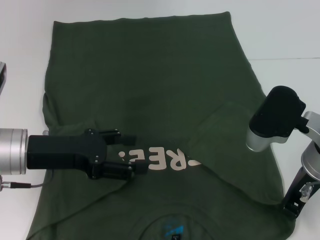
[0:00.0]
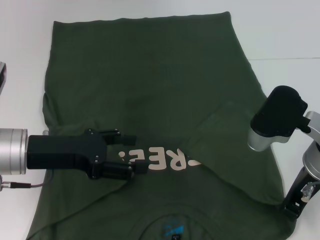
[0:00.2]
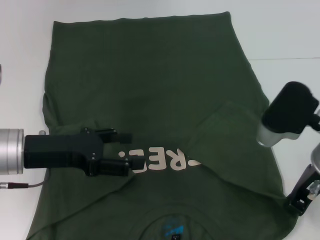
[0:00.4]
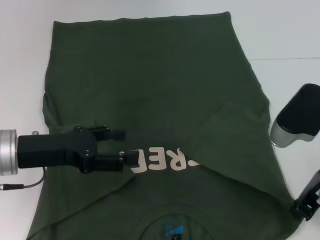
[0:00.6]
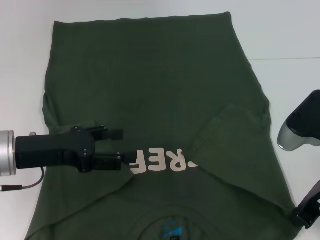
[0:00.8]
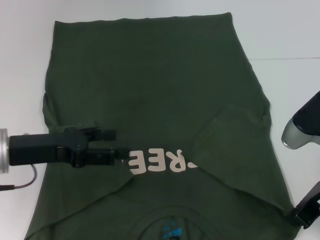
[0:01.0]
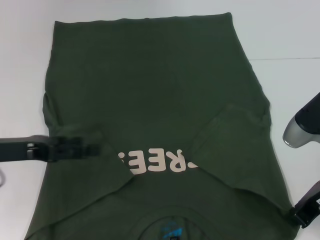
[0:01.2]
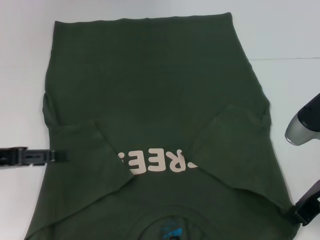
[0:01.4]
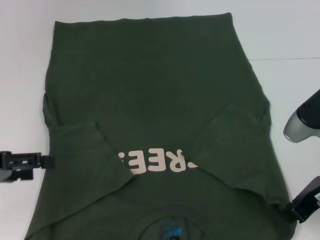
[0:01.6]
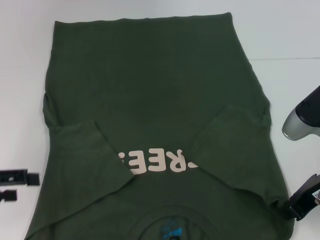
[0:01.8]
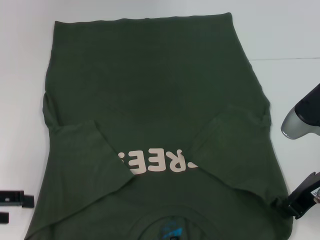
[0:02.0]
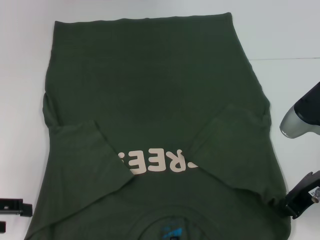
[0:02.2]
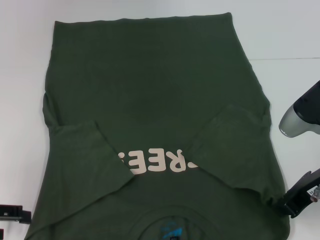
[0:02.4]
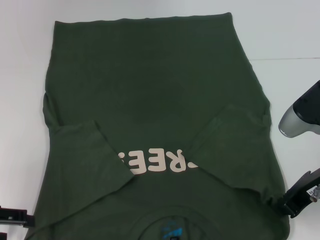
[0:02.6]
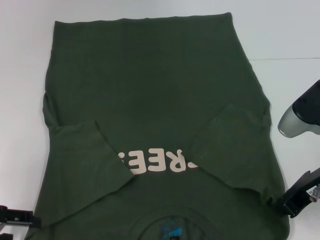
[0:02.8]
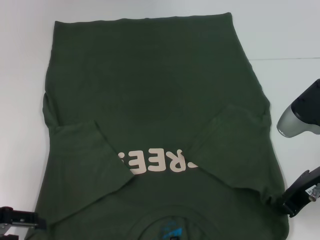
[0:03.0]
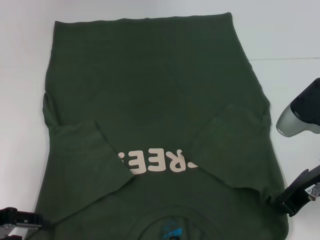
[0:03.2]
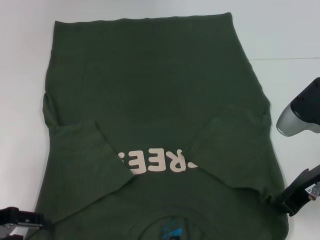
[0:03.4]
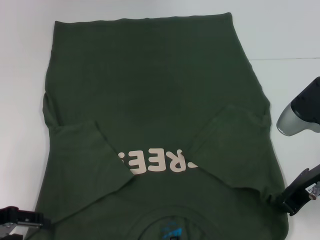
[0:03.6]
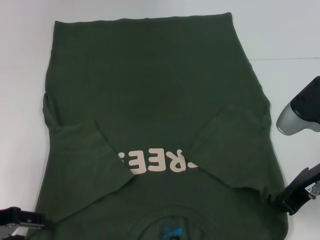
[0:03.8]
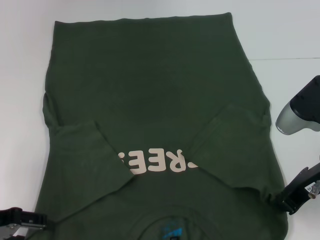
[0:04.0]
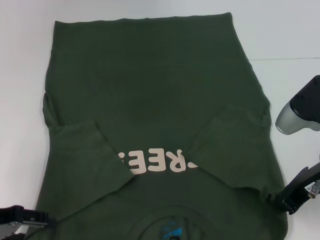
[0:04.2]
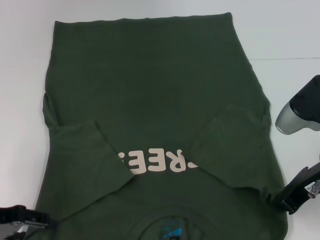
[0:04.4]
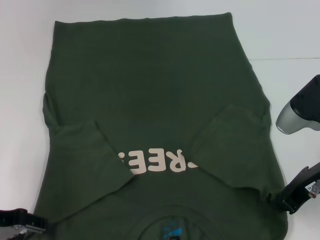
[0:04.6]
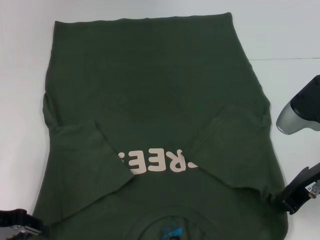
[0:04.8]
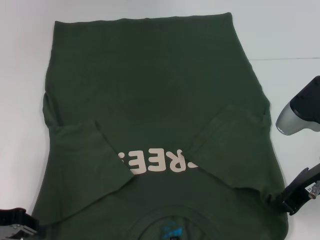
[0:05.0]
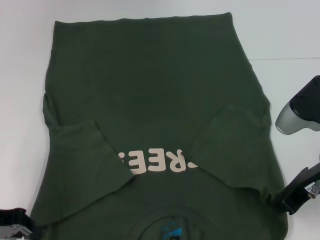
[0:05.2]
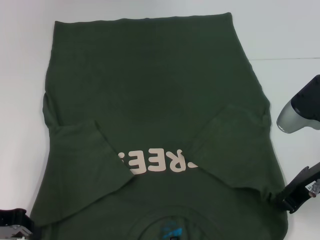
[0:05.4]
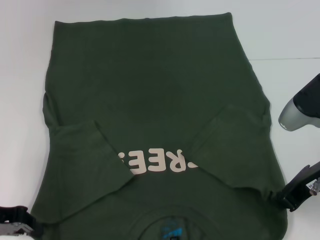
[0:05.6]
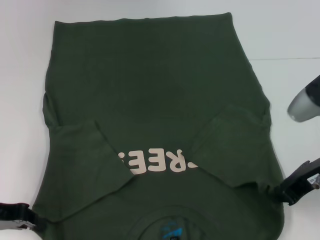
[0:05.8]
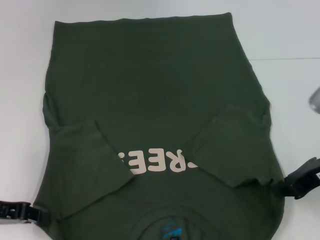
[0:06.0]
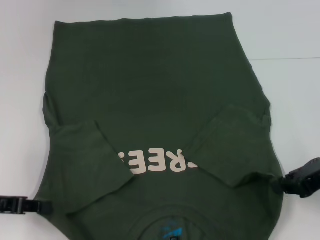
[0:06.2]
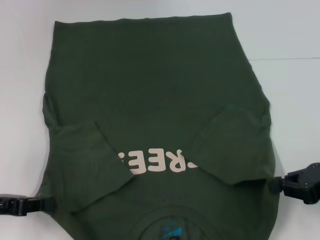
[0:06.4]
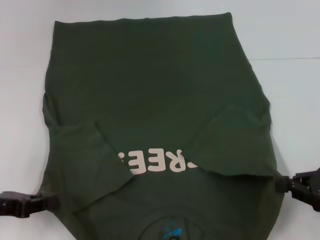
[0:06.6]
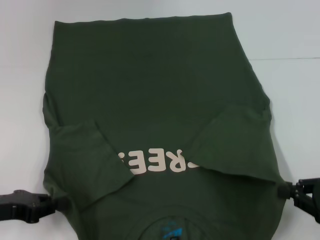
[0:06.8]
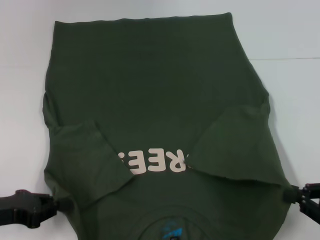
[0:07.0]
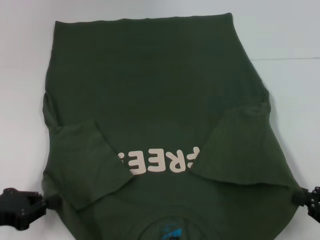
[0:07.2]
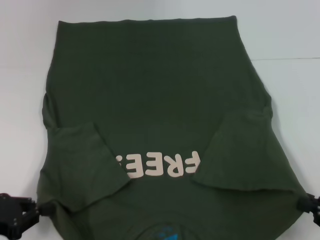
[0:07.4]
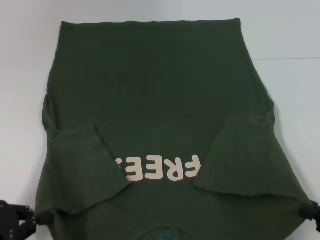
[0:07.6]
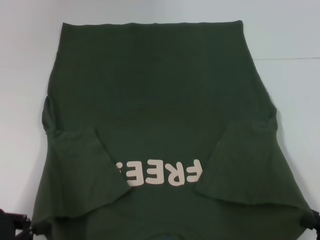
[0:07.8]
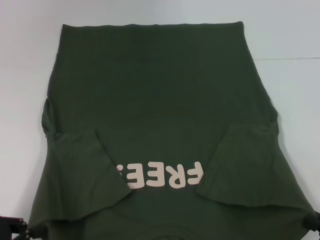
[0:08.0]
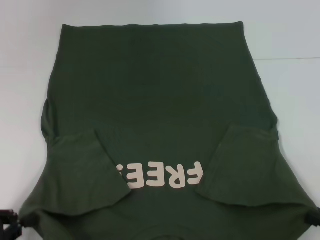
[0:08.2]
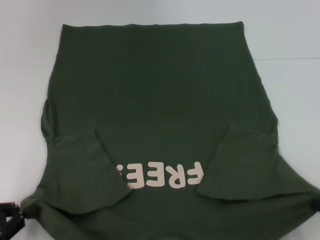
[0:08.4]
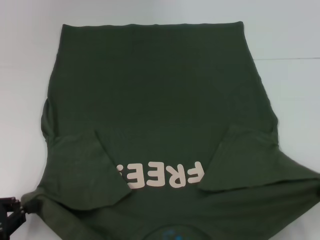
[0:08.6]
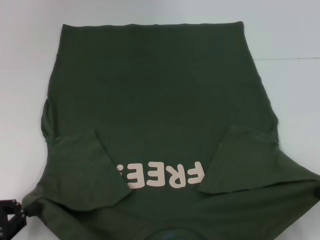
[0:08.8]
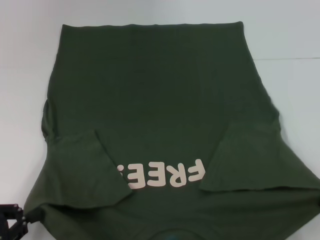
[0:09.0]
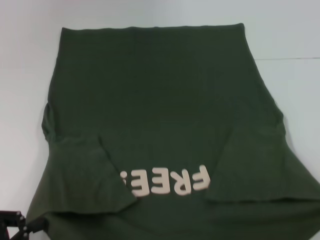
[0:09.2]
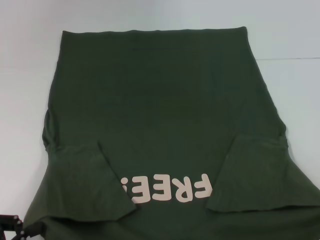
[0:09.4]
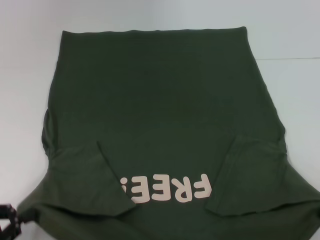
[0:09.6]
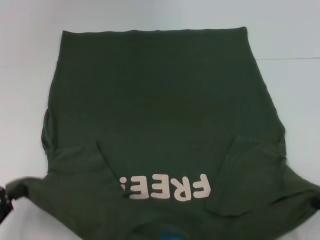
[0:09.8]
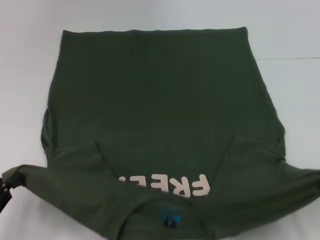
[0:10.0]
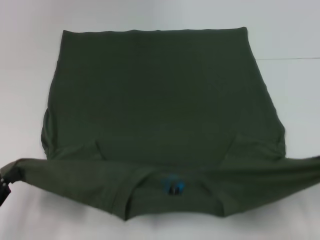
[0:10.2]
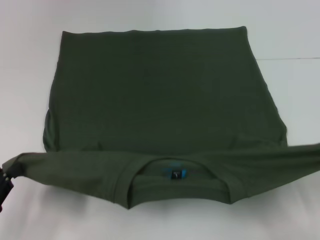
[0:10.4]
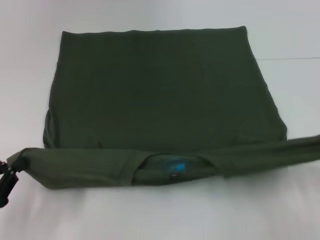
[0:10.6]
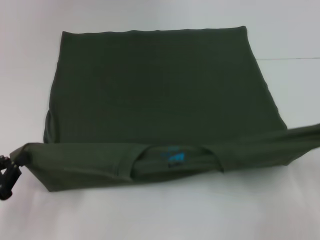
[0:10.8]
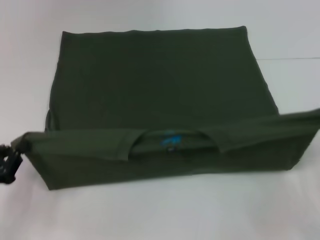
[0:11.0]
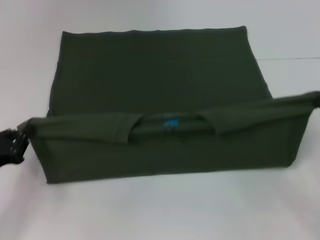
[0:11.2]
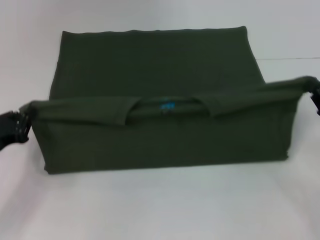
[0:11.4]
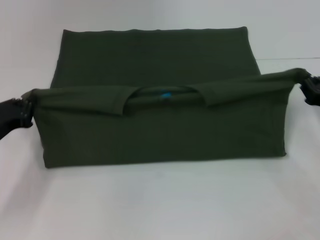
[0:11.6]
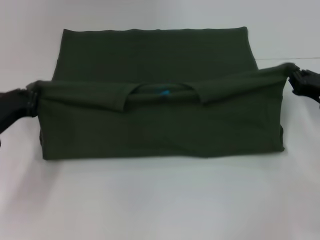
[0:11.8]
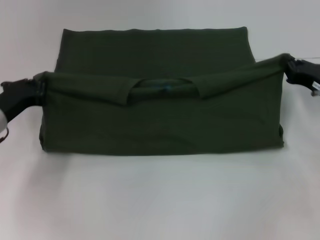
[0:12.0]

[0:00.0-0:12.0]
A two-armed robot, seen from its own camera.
Step, 0:00.6 to 0:05.4: Grab the bottom left corner with your left hand.
0:00.0 to 0:01.6: The left gripper goes roughly 10 cm to the left.
0:03.0 to 0:04.4: The grippers stay close to where they were, moving slightly.
0:04.4 to 0:06.0: The left gripper closes up.
0:06.0 to 0:07.6: The right gripper is displaced backward, downward and to the right by some 20 cm, while the left gripper is displaced backward by approximately 5 cm.
0:07.6 to 0:09.0: The grippers stay close to where they were, moving slightly.
0:10.4 to 0:12.0: The two grippers go about 20 cm forward.

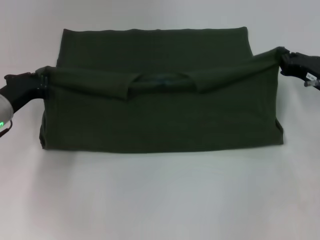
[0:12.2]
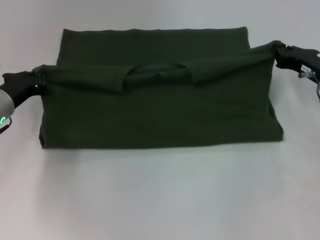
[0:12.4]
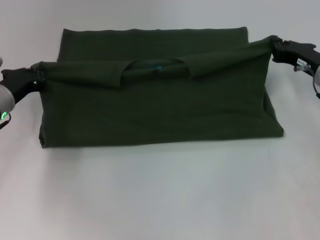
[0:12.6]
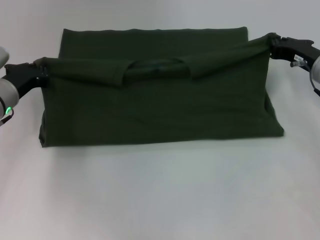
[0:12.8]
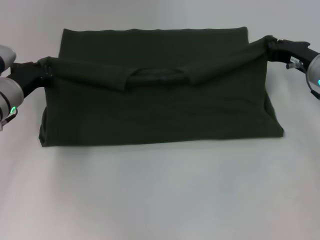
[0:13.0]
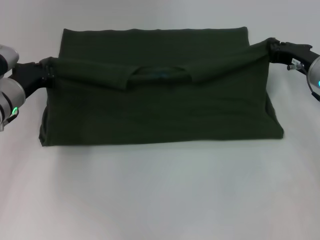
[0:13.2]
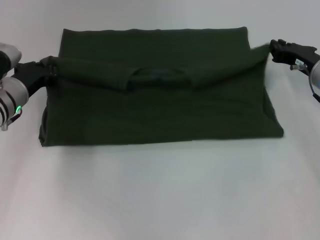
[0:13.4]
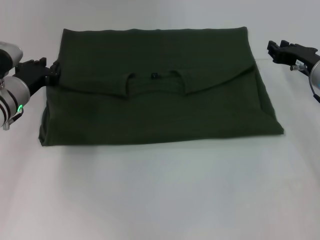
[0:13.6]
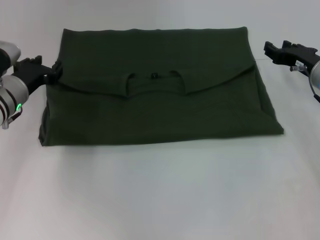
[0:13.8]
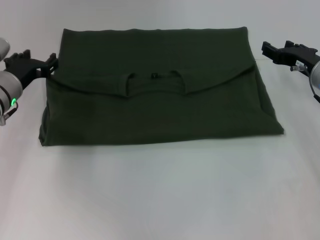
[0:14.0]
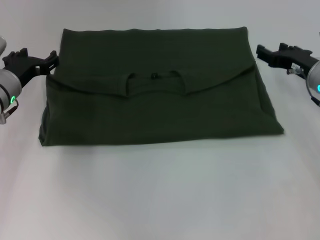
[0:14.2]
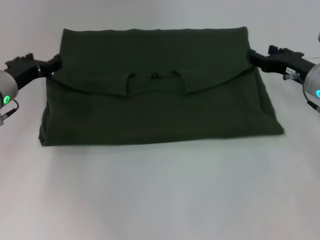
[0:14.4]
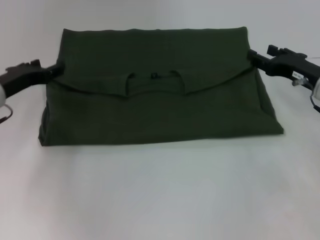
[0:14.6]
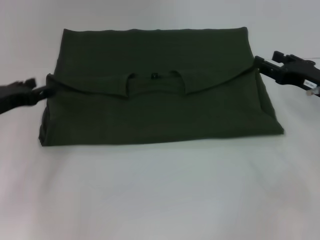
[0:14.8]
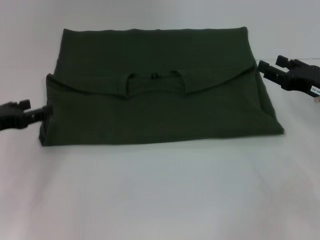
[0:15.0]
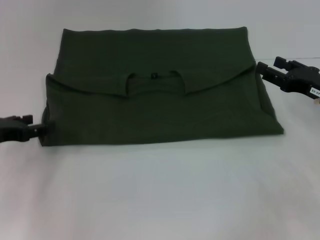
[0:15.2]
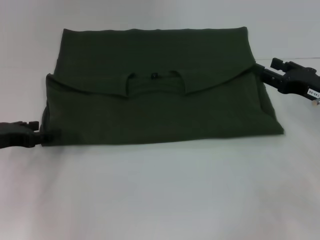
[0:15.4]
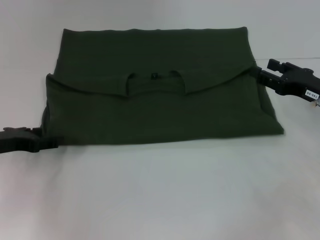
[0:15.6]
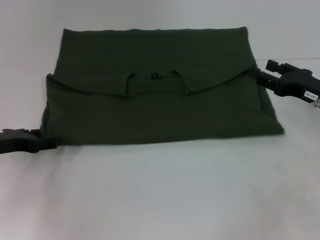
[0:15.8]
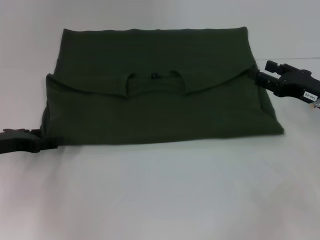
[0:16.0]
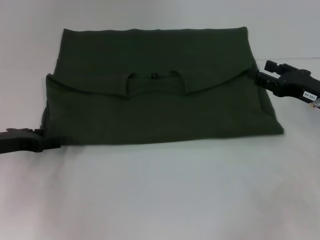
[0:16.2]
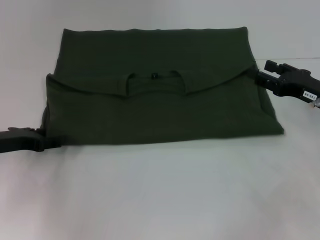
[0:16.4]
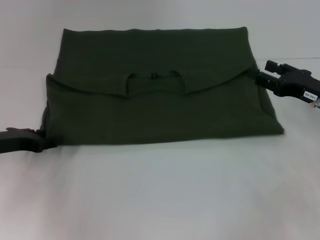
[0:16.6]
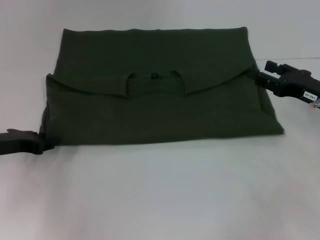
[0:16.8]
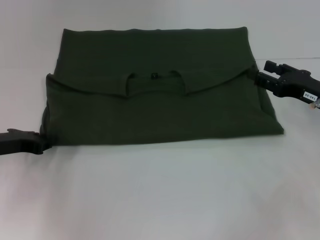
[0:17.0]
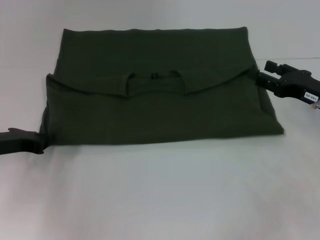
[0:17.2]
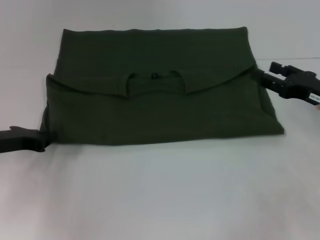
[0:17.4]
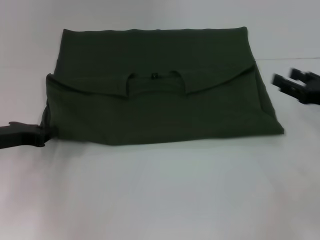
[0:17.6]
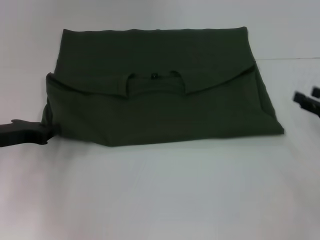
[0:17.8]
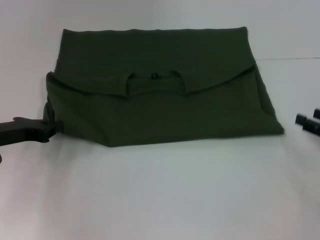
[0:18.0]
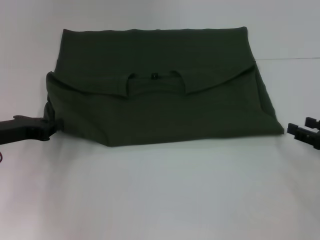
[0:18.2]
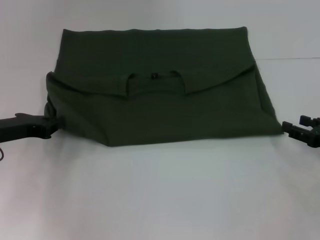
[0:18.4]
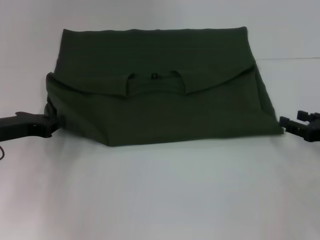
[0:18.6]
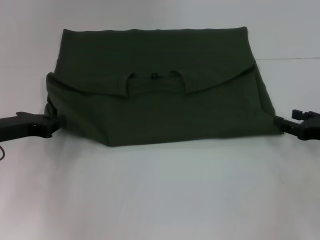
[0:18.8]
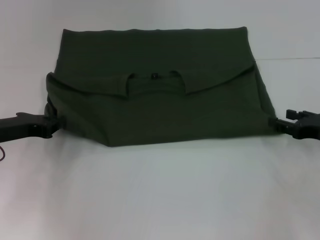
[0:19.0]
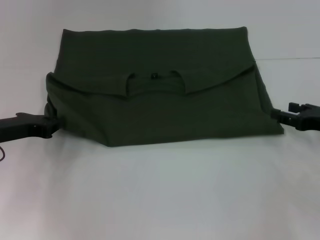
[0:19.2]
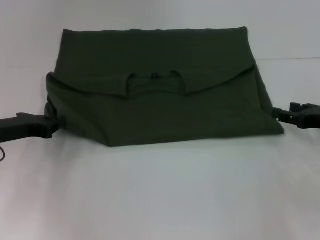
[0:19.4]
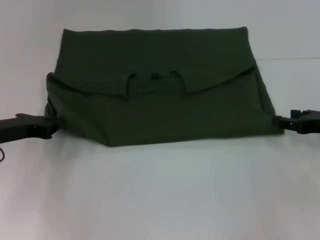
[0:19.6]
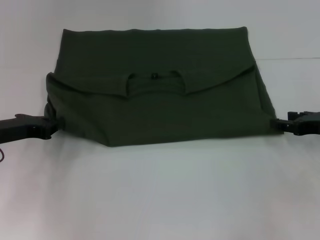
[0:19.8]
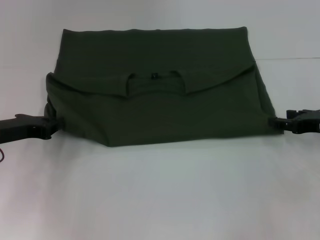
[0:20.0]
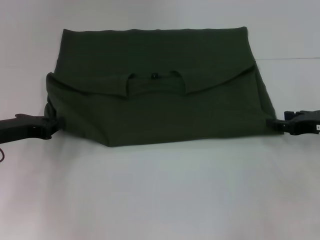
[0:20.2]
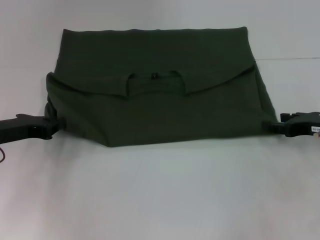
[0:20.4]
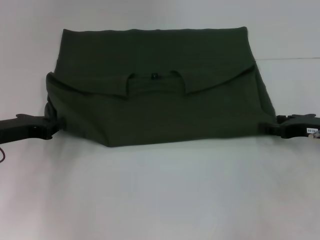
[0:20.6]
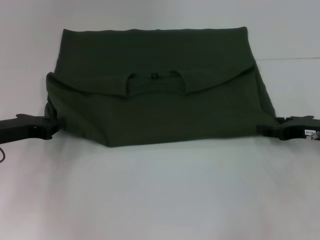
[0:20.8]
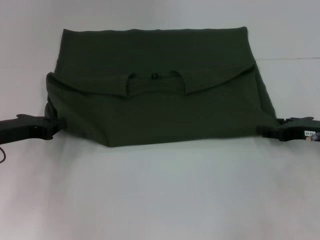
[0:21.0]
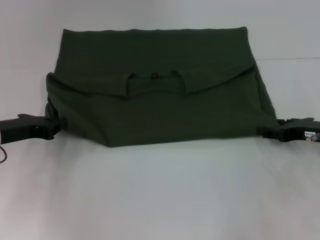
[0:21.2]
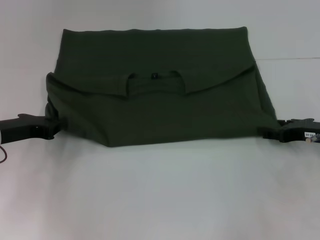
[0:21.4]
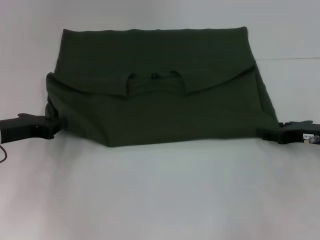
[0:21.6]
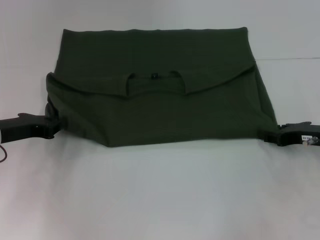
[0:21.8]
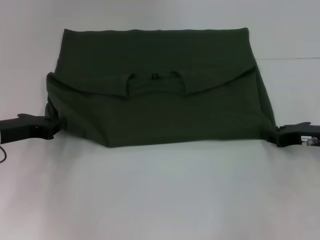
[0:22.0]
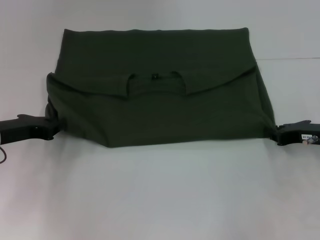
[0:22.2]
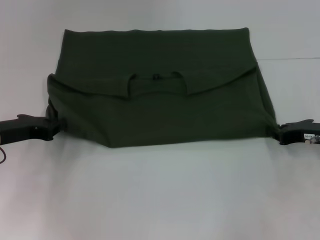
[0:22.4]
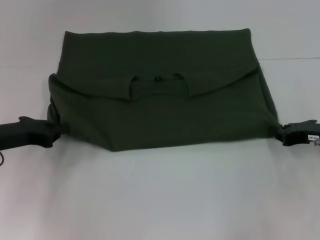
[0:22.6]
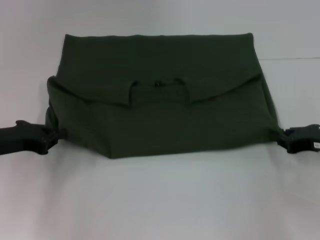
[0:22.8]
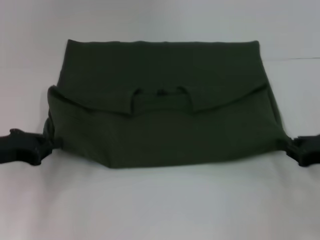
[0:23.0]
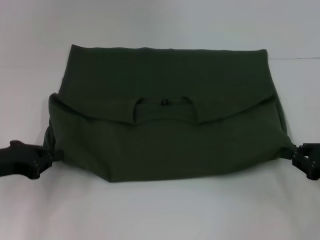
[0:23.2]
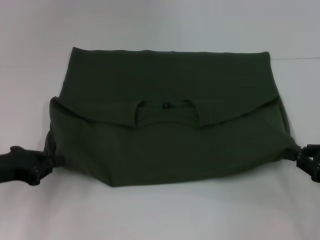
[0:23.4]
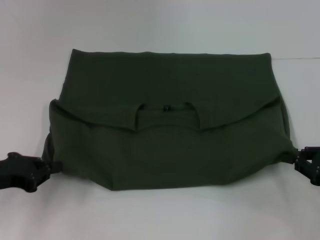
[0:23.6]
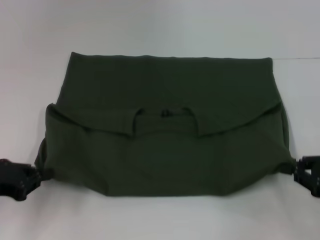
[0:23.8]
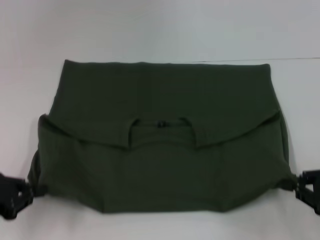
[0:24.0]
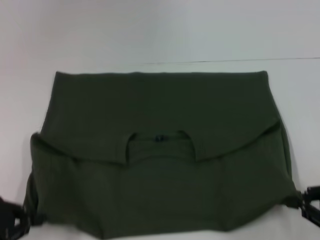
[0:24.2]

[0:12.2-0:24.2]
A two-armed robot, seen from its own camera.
0:12.2 to 0:13.8: The right gripper opens its fingers.
0:13.8 to 0:15.2: The right gripper goes about 5 cm backward, and opens its fingers. The left gripper is displaced backward and to the left by roughly 10 cm, and opens up.
0:15.2 to 0:16.6: The grippers stay close to where they were, moving slightly.
0:16.6 to 0:18.2: The right gripper travels backward and to the right by about 10 cm, while the left gripper closes its fingers.
0:18.2 to 0:19.8: The right gripper travels forward by some 5 cm.
0:19.8 to 0:21.2: The grippers move only a little.
0:21.2 to 0:22.6: The right gripper closes up.
0:22.6 to 0:24.2: Both grippers travel together backward, roughly 15 cm.
